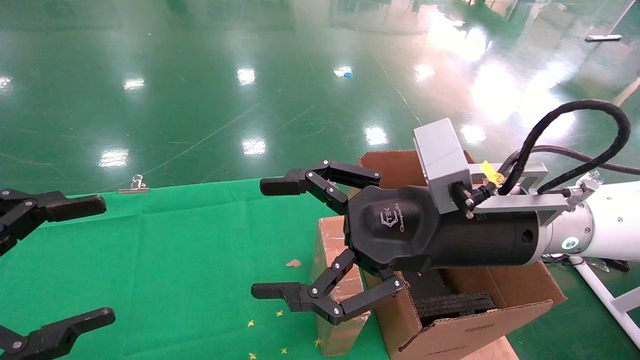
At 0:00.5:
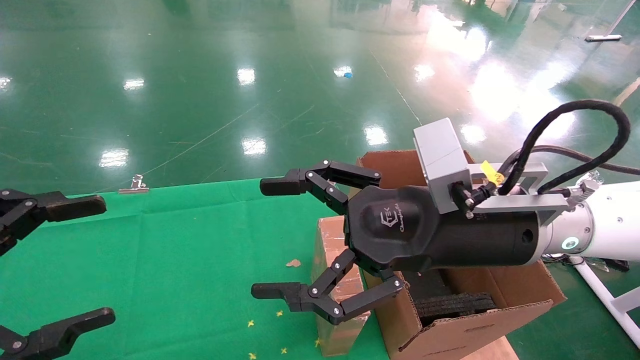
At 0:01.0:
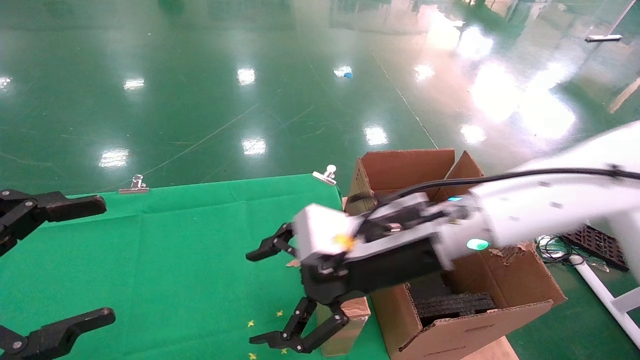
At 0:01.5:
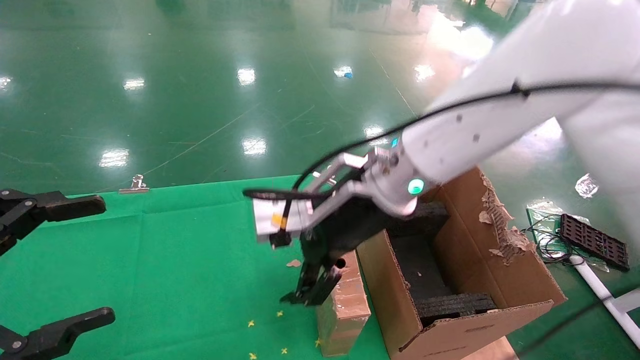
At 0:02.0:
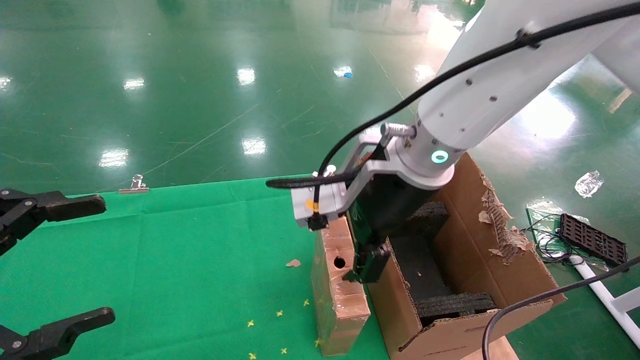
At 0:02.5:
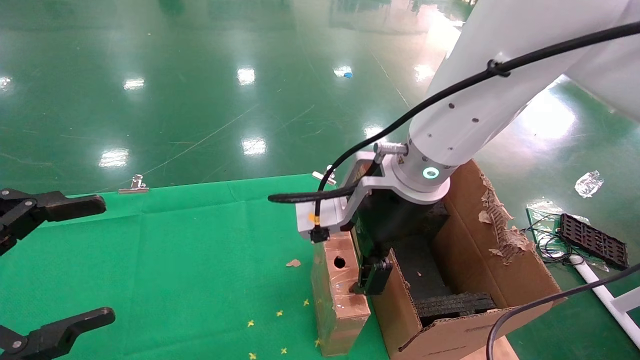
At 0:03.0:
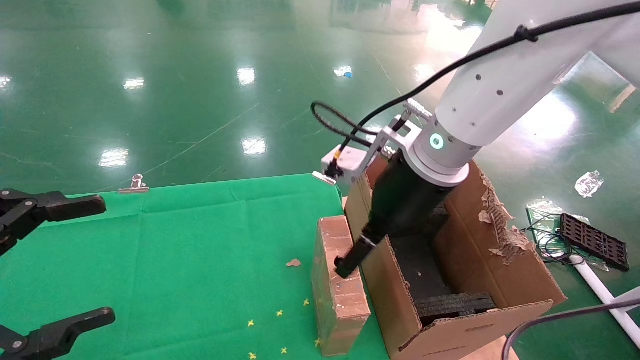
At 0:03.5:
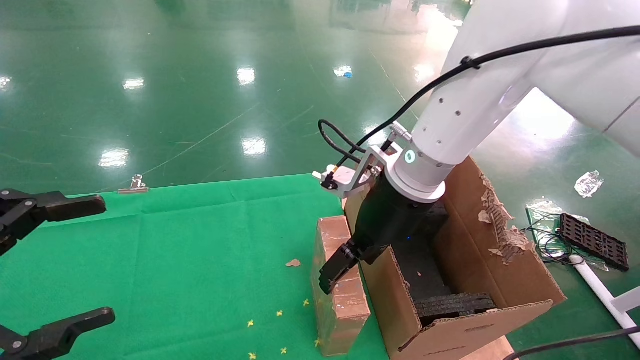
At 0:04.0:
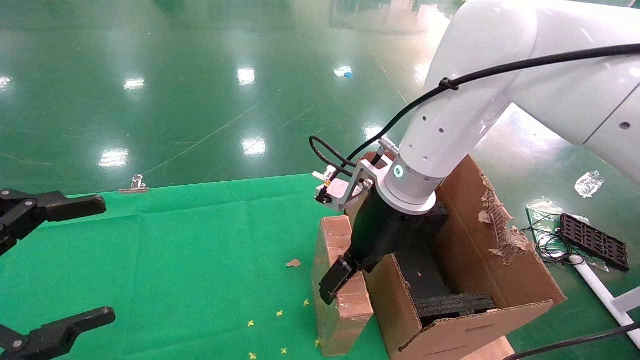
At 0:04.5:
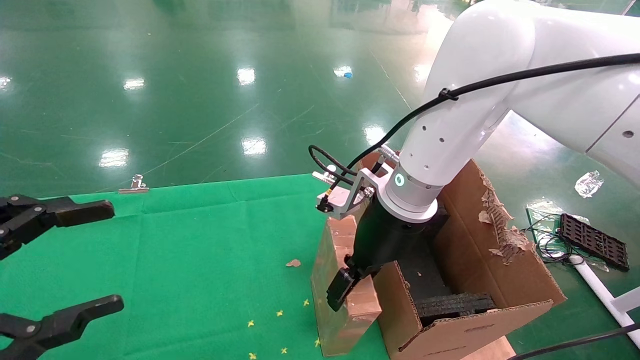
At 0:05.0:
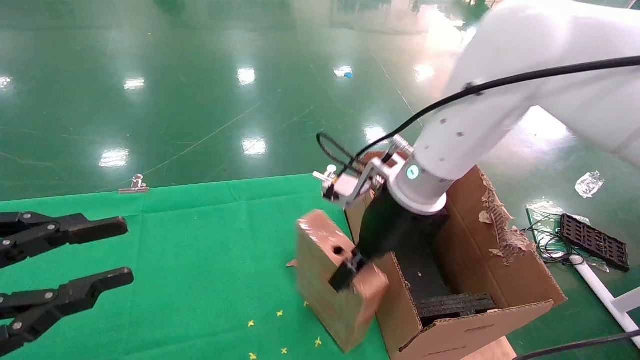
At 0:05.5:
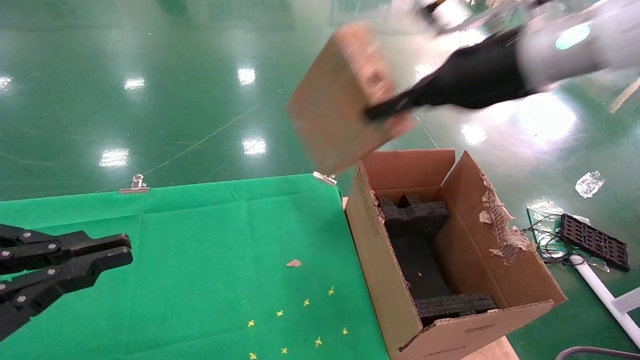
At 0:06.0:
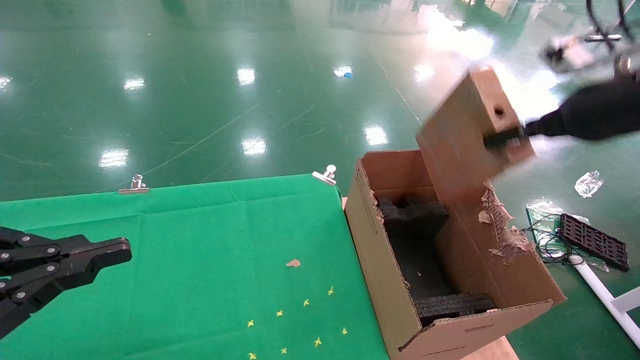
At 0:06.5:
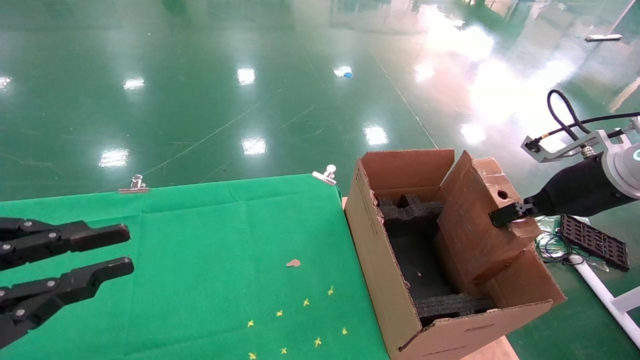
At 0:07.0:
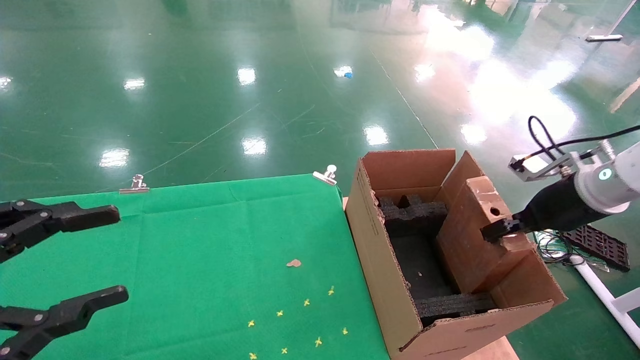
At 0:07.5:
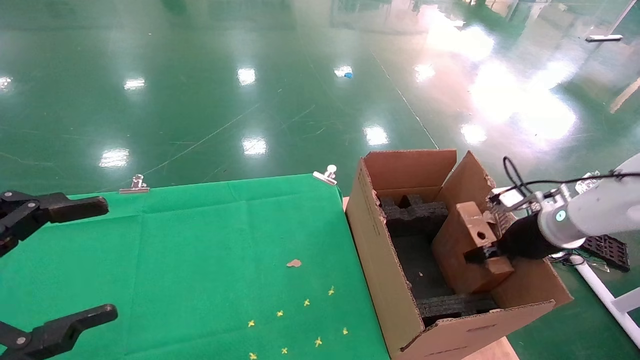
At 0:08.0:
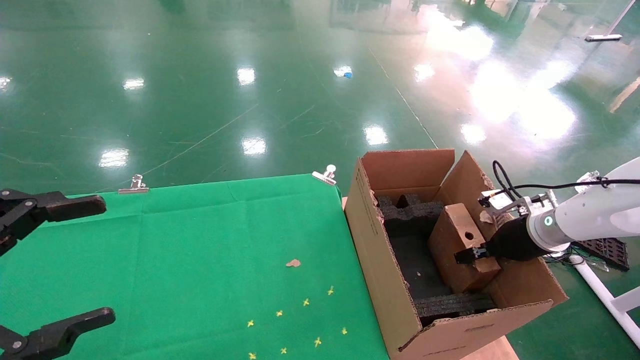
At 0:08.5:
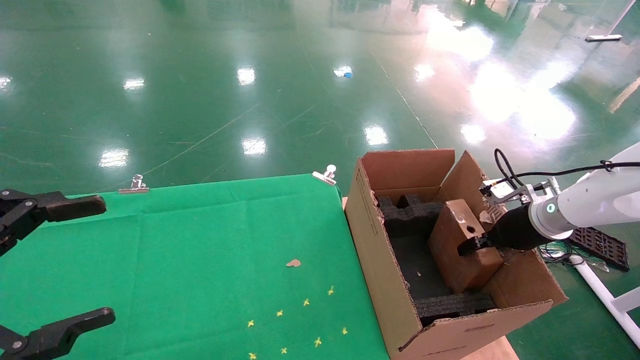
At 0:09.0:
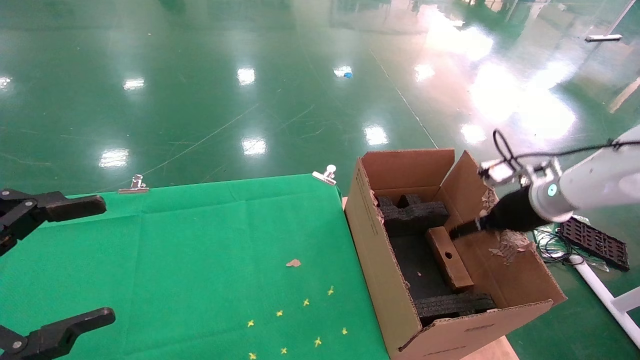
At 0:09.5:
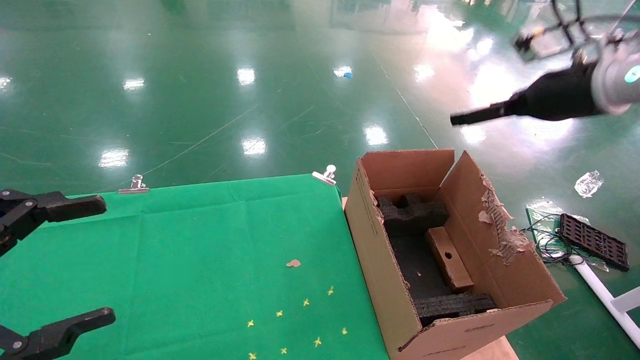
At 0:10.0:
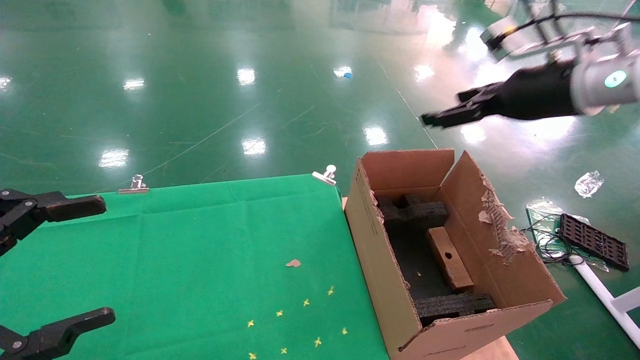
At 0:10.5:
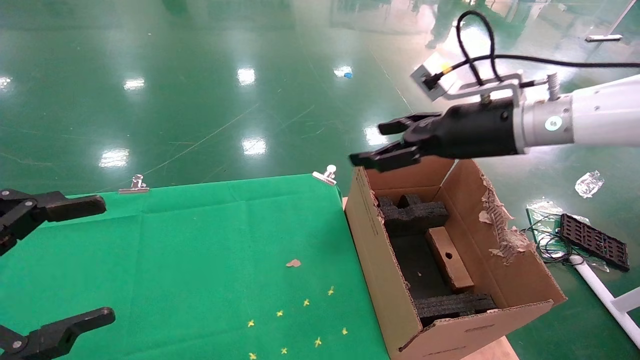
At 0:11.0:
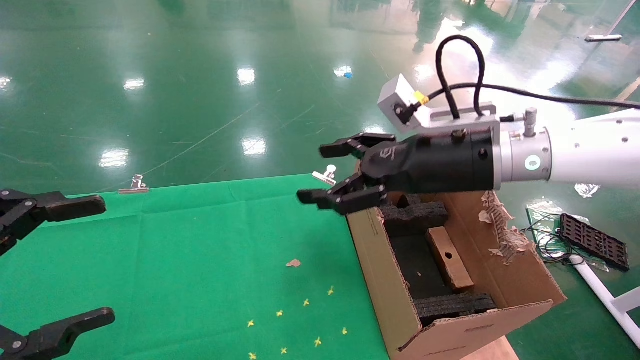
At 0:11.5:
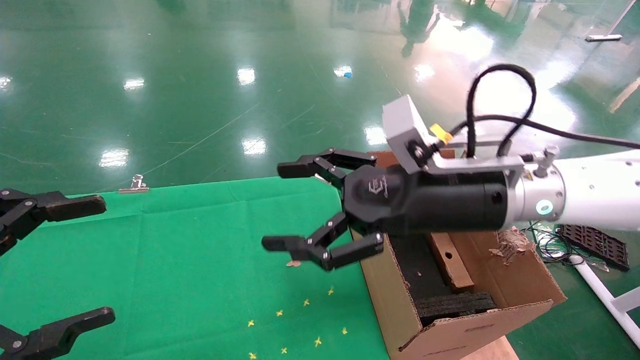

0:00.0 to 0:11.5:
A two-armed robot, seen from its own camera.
Task of the whole recording: using a robotic arm to pick up a cardboard box and palace it the carton.
Step, 0:01.0 to 0:04.5: Pick up the mouse and the power cord paper box.
Step, 0:05.0 to 0:08.5: Place the mouse and the power cord paper box into the container.
0:00.0 to 0:02.0: The right gripper is displaced forward and to the left by approximately 10 cm.
0:02.0 to 0:04.0: The right gripper moves roughly 5 cm.
0:04.0 to 0:06.0: The right gripper is displaced to the right and upward by some 25 cm, and closes up. Meanwhile the left gripper closes.
0:06.0 to 0:07.5: The left gripper opens up, while the right gripper moves downward, some 20 cm.
0:07.5 to 0:09.5: The right gripper travels upward by roughly 20 cm, and opens its fingers.
0:09.5 to 0:11.5: The right gripper moves to the left, approximately 20 cm.

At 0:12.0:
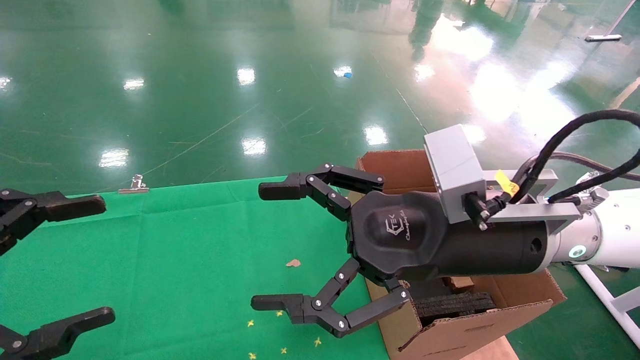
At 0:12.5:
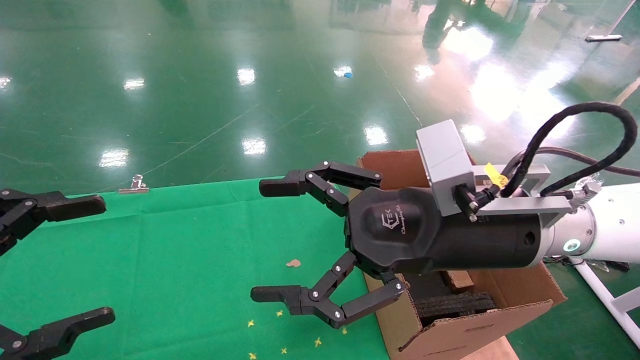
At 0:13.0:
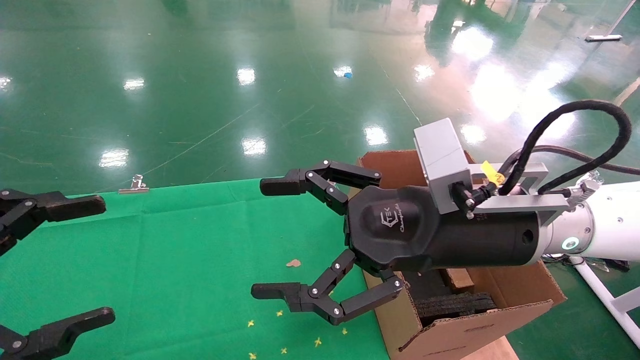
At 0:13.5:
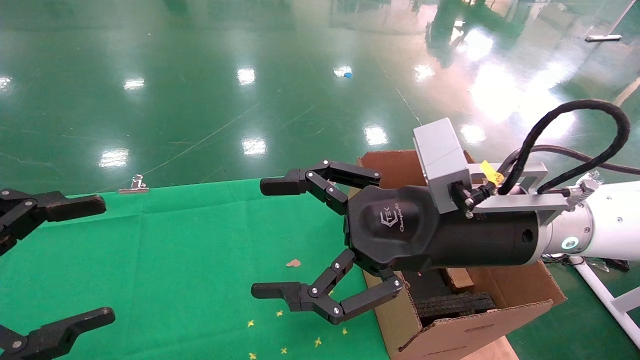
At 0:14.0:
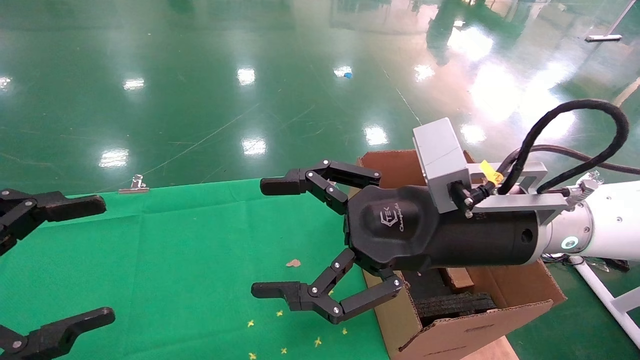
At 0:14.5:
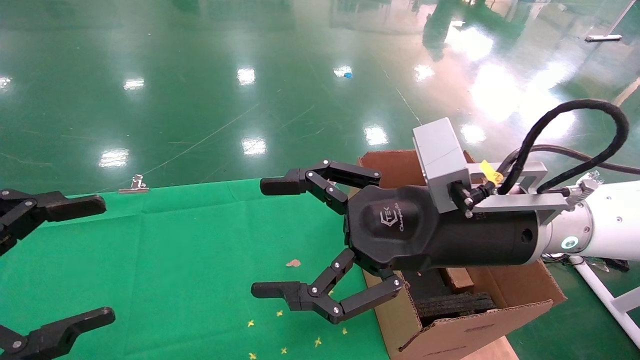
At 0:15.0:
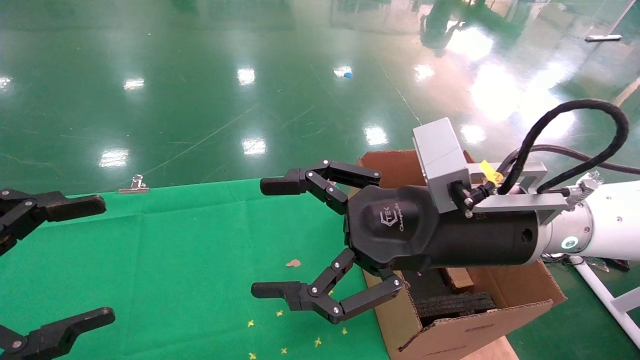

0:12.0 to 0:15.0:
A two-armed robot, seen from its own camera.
Task of the whole recording: using a robotic arm to pick up a cardboard box and palace it the carton.
0:12.0 to 0:15.0: Neither gripper changes place.

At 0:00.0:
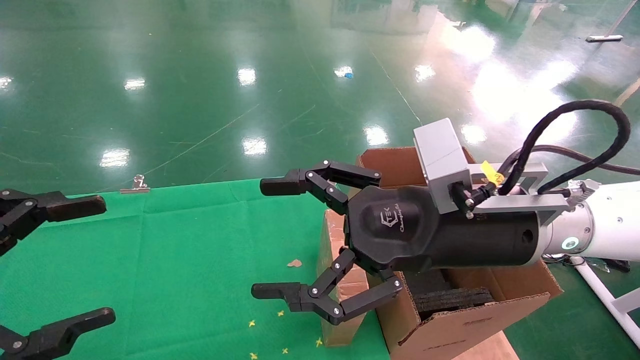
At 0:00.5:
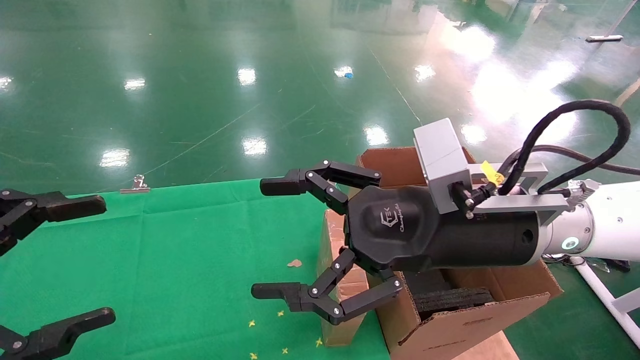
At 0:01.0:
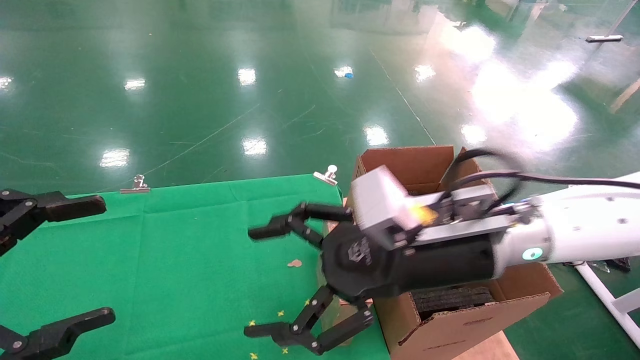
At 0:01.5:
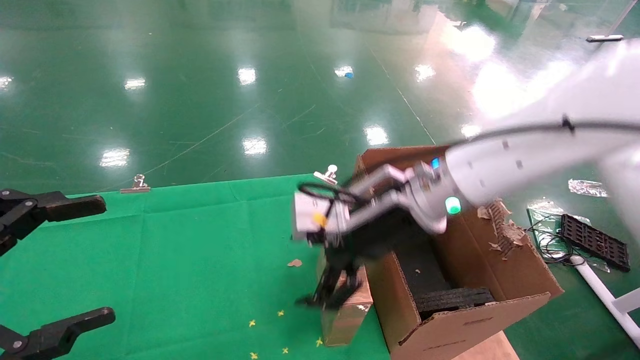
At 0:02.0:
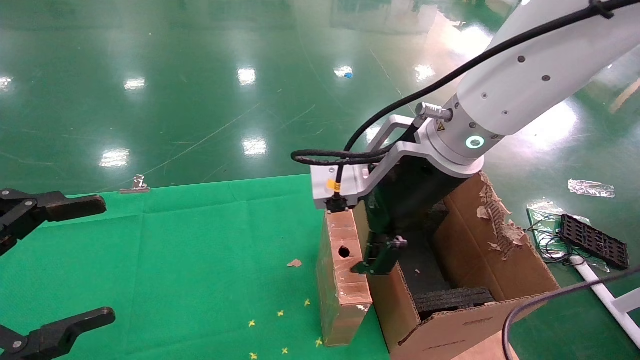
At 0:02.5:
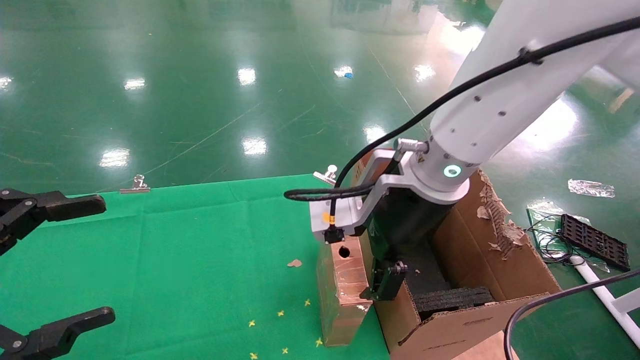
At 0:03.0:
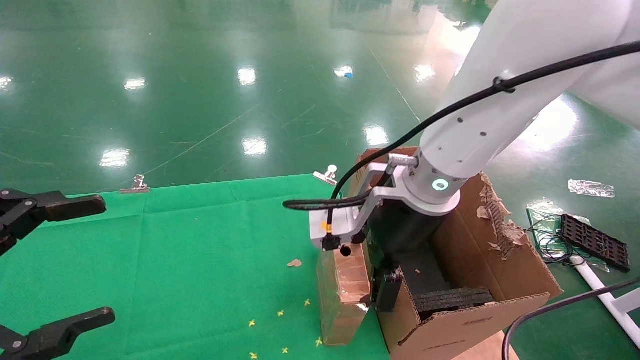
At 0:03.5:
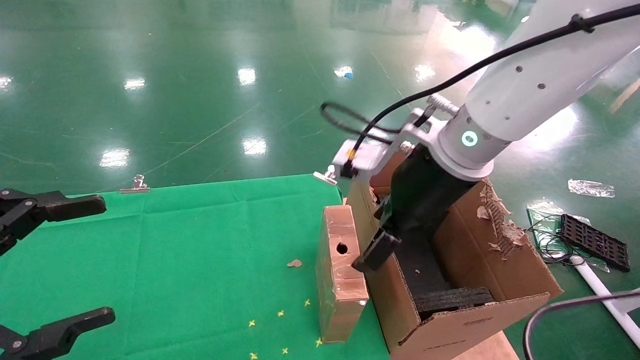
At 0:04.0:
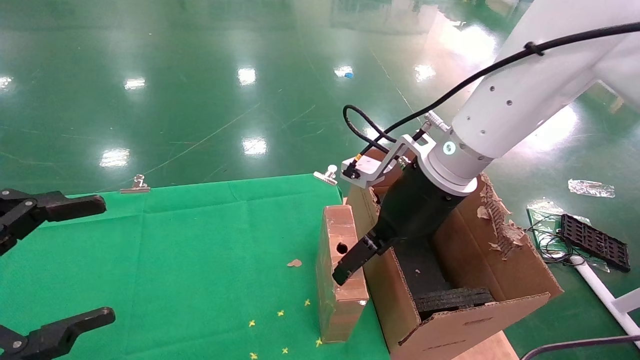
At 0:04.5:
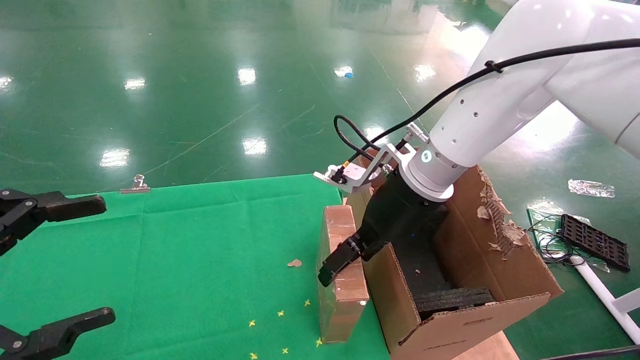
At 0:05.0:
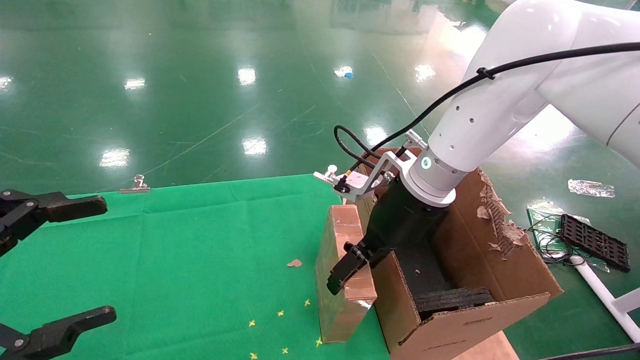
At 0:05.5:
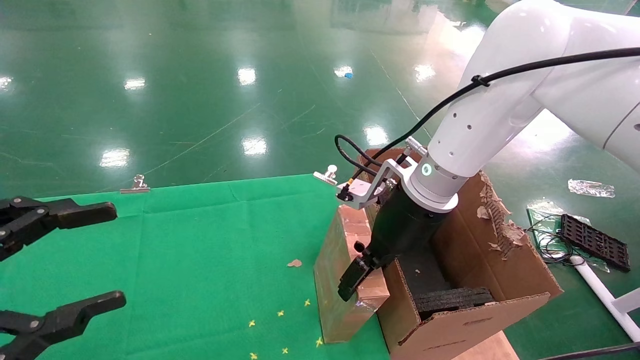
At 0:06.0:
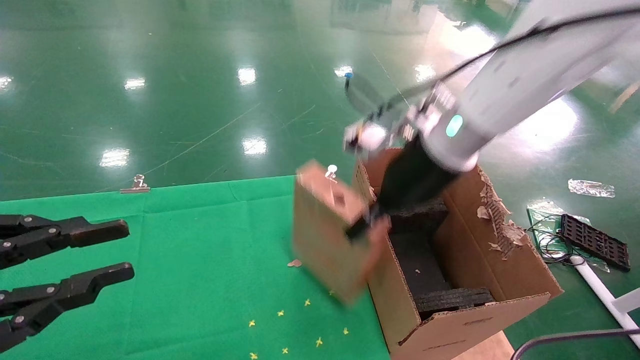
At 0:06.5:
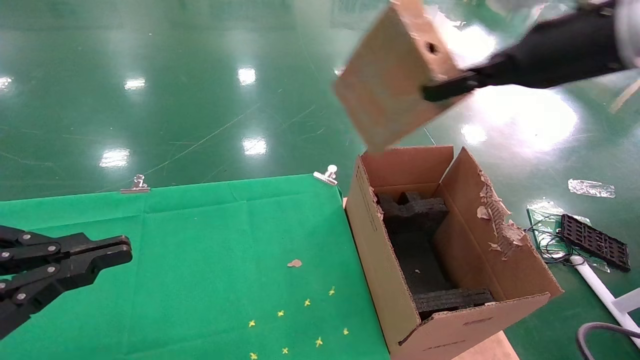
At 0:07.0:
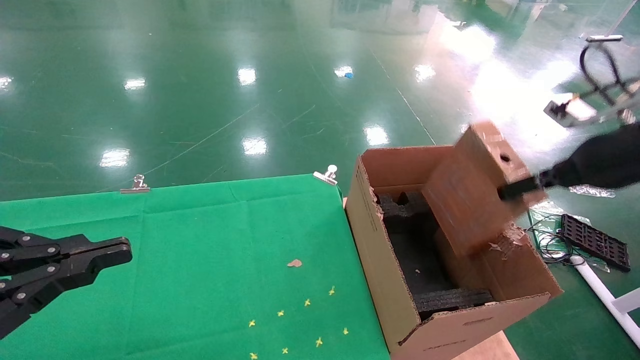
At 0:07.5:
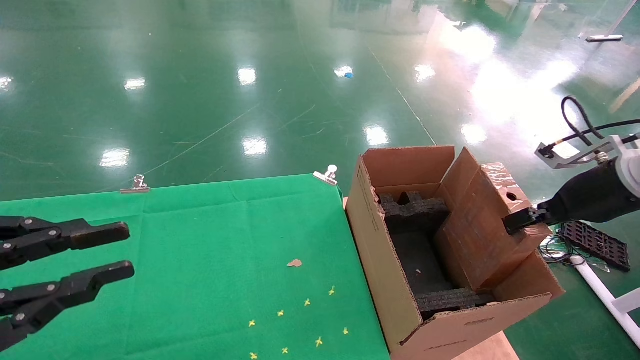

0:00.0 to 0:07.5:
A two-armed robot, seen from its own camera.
Task of the whole recording: using a robotic arm to pick up a cardboard box and palace it the carton.
Step, 0:01.0 to 0:05.5: Pick up the mouse and the power cord paper box.
0:00.0 to 0:02.0: The right gripper is displaced forward, upward and to the left by roughly 10 cm.
0:02.0 to 0:04.0: The right gripper ends up approximately 5 cm from where it was.
0:04.0 to 0:05.5: There are only small adjustments of the grippers.
0:05.5 to 0:07.5: The left gripper closes its fingers, while the right gripper is displaced to the right by some 25 cm, and closes up.
